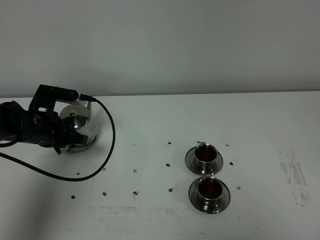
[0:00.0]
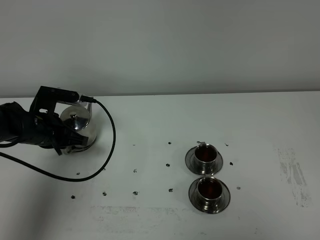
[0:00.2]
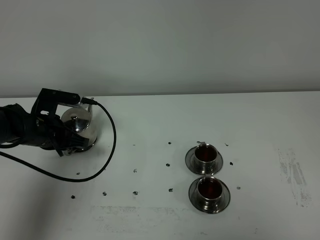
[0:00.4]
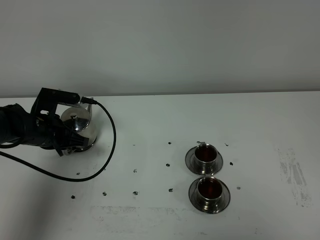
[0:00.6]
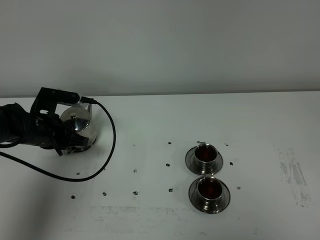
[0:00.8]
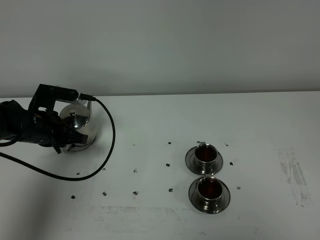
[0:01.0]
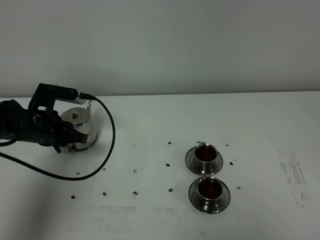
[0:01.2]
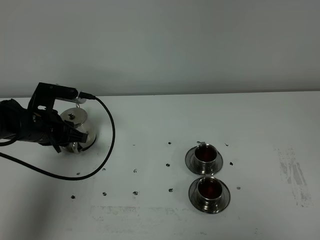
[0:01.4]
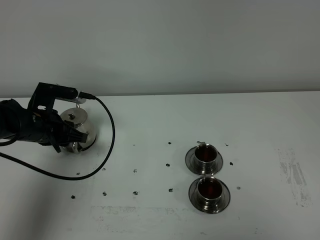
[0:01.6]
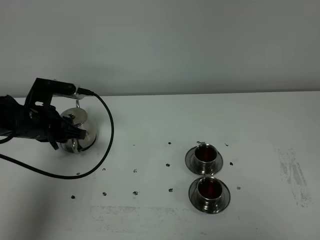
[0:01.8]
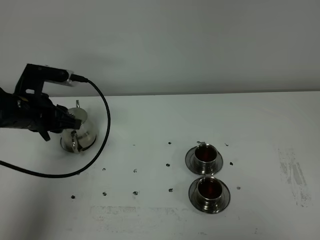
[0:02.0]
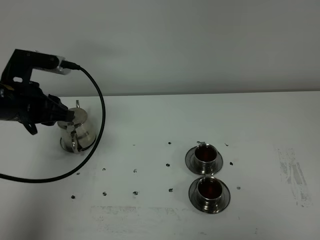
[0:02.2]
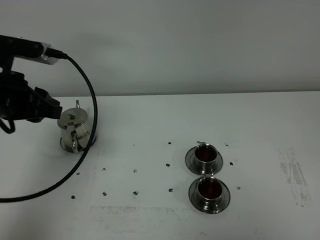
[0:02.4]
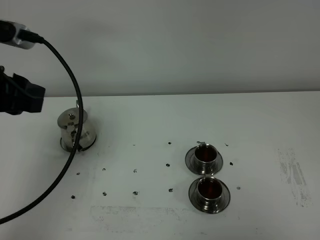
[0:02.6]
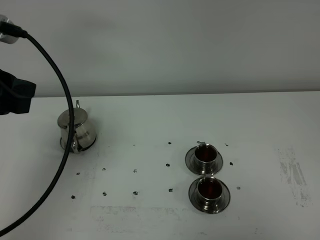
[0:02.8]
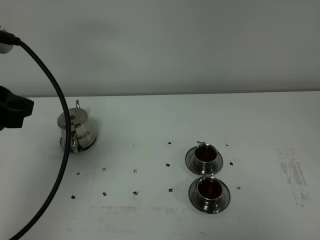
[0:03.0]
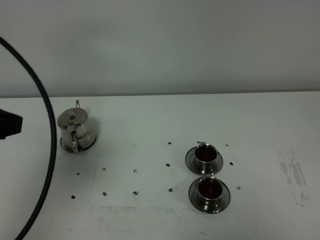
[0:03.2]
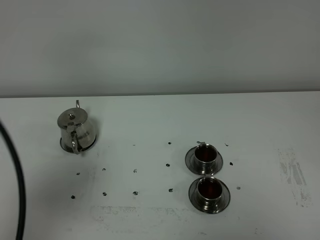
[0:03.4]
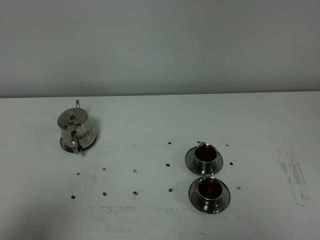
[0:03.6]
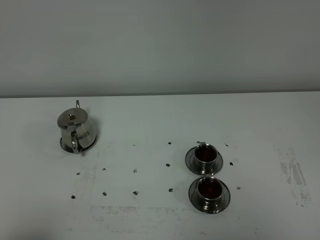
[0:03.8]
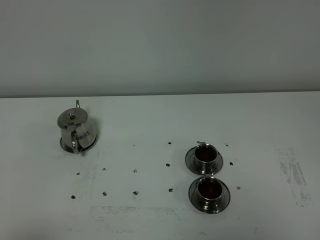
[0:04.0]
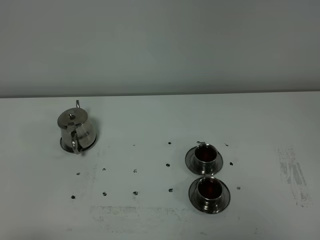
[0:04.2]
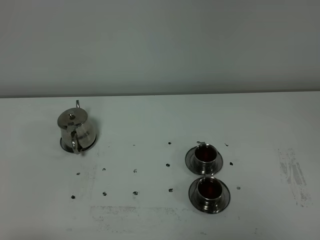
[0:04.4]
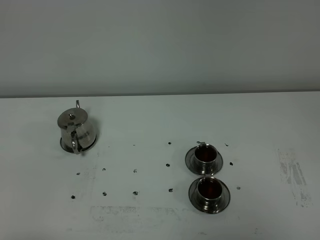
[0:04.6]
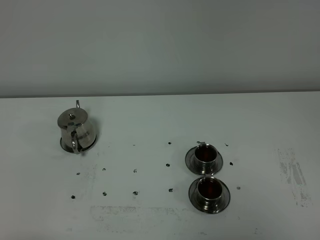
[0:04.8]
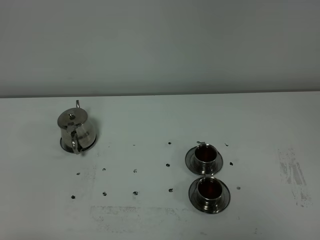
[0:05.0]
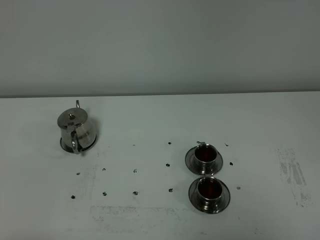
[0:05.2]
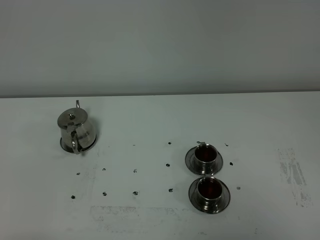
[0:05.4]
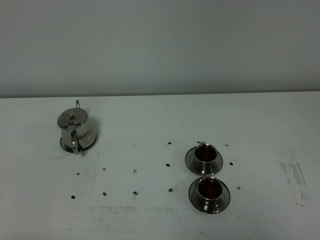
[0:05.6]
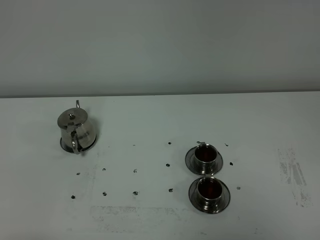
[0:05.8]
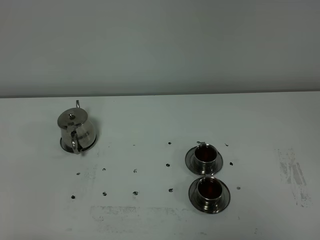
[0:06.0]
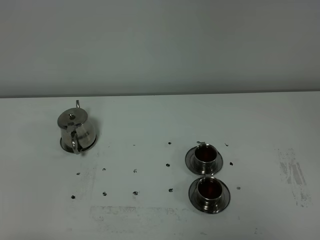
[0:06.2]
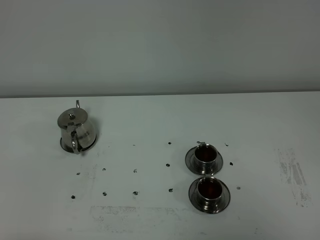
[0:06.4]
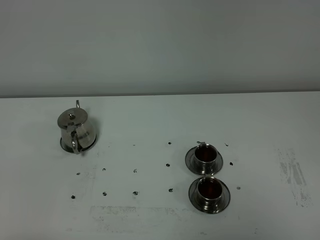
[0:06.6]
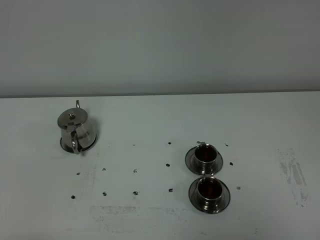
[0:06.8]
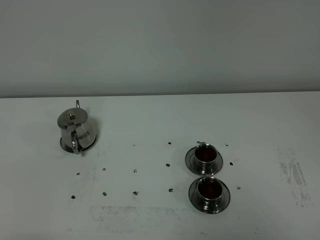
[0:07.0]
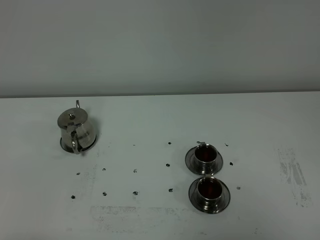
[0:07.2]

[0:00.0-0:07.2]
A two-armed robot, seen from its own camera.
Task of the whole recording: grasp the stainless steel teapot and pour the tea into the two stainless steel teacups one by one, put the stainless steel teapot back in its original place.
0:00.0 to 0:01.4: The left gripper opens.
0:01.4 to 0:02.8: The left gripper travels upward and backward by roughly 25 cm.
0:02.8 to 0:04.4: The left gripper heads backward and downward, covering some 25 cm.
0:05.8 to 0:07.2: The two grippers keep their place.
